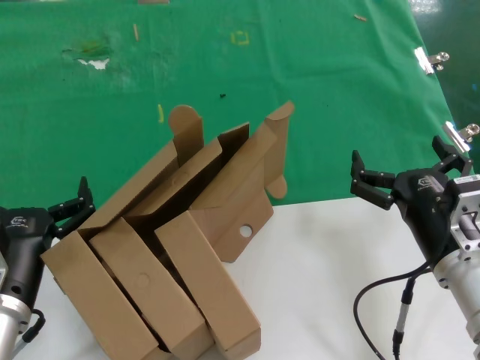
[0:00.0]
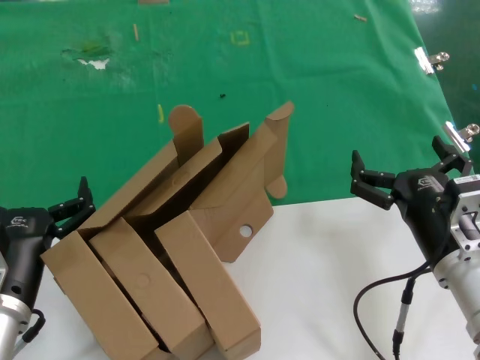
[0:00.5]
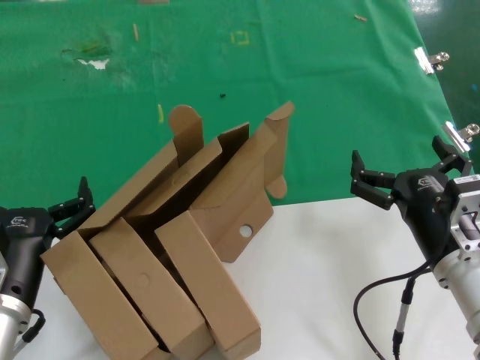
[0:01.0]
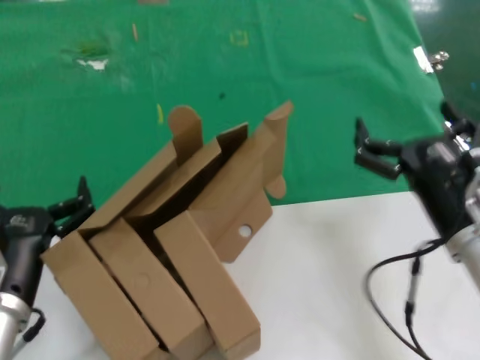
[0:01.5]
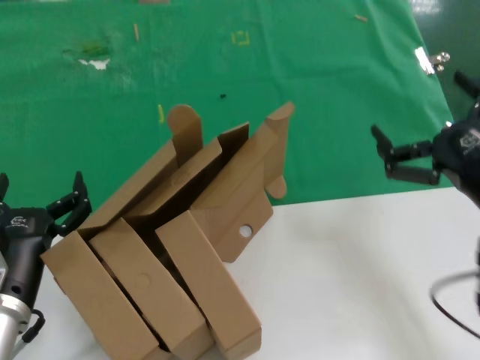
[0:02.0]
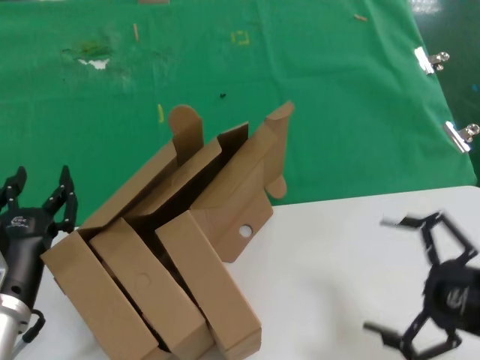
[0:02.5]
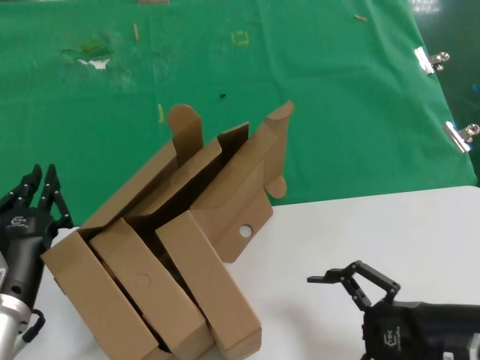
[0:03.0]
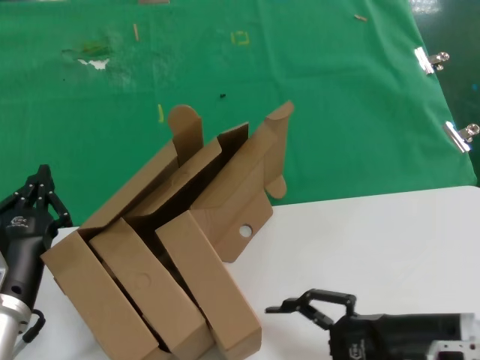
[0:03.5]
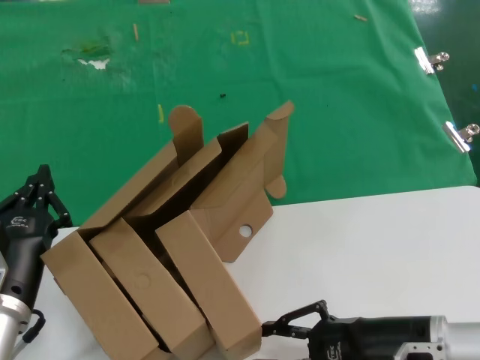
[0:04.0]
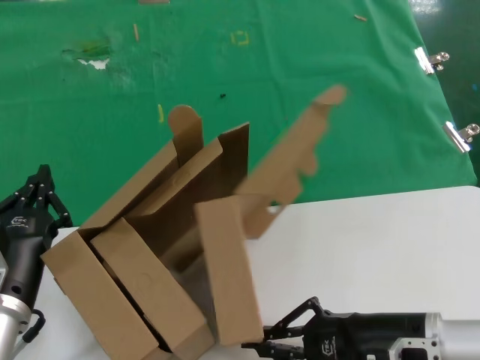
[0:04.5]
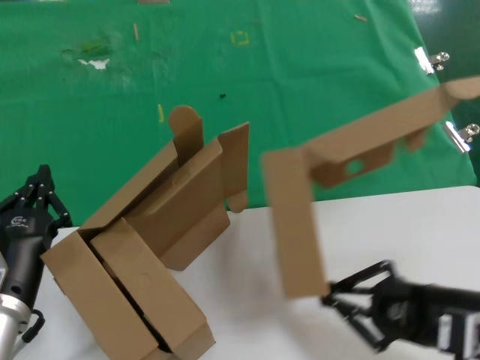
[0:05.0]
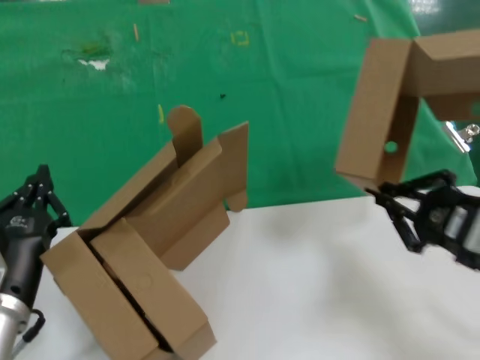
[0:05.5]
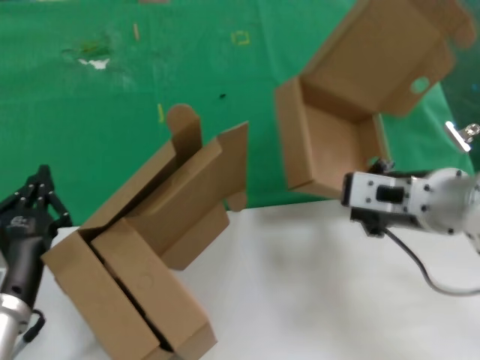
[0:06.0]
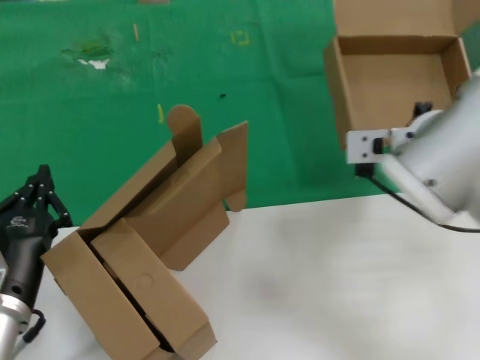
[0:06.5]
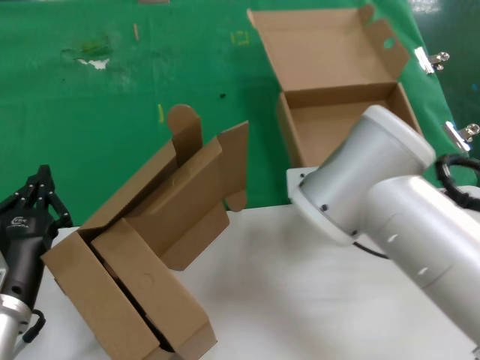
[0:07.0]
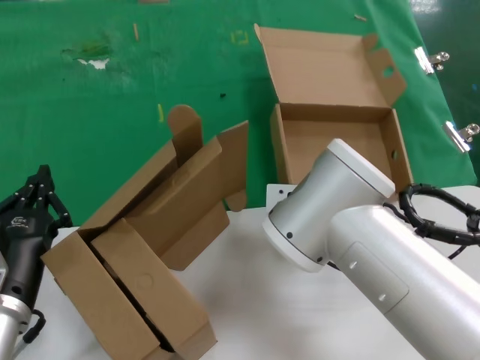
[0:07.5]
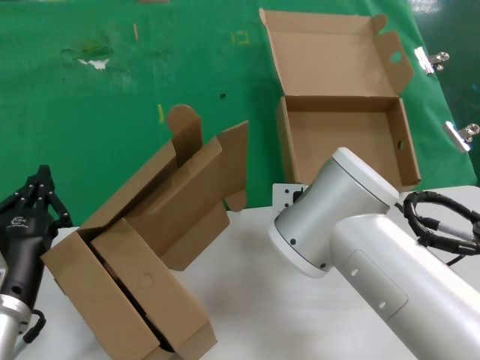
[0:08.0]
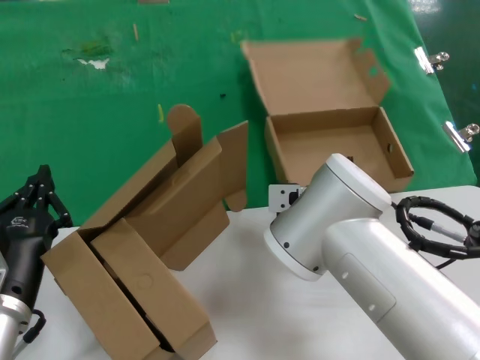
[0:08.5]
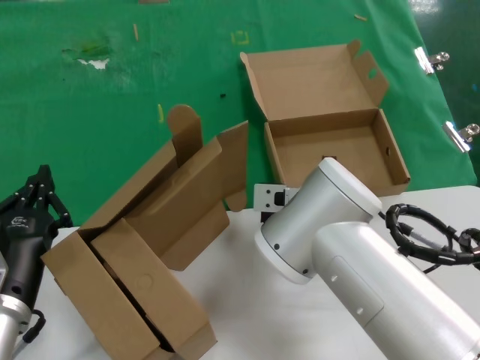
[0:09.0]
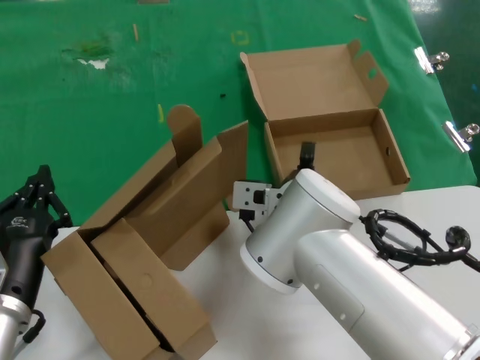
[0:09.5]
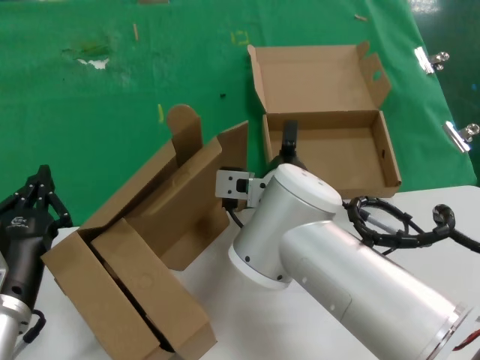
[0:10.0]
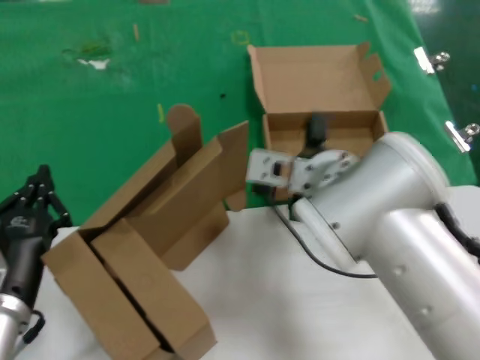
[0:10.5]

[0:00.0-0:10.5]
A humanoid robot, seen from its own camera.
Task of the whole recording: pick up the paper box and put it at the back.
Step, 0:00.0 to 0:04.0: Grasp the paper box.
Step, 0:04.5 to 0:10.0: Place the paper box on the table.
0:00.0 to 0:02.0: The right hand is displaced upward and to the right by approximately 10 cm.
0:02.0 to 0:04.0: The right hand travels downward by about 10 cm.
0:04.0 to 0:06.5: The right hand travels upward, forward and to the left by some 25 cm.
0:06.5 to 0:08.5: The right hand is displaced downward and to the left by some 15 cm.
0:08.5 to 0:10.5: The right hand moves about 5 cm.

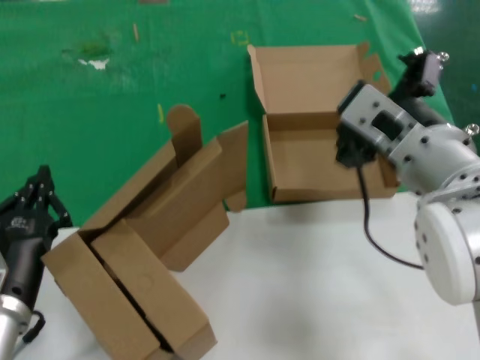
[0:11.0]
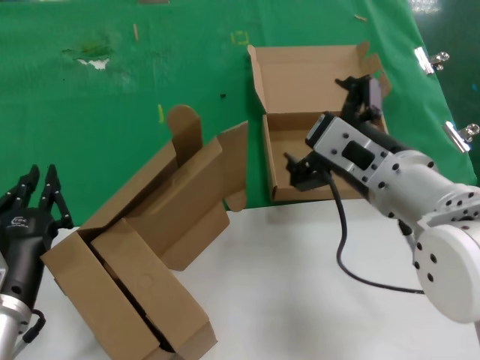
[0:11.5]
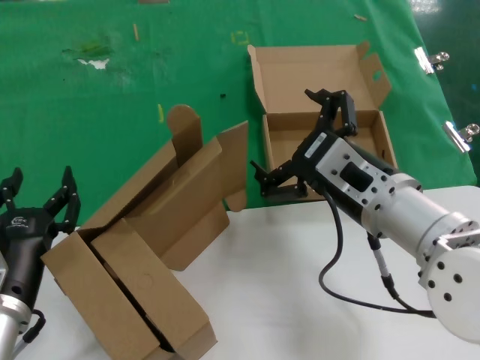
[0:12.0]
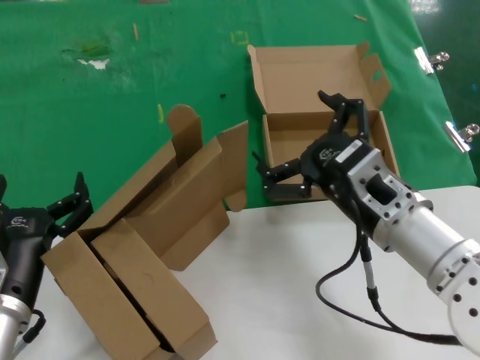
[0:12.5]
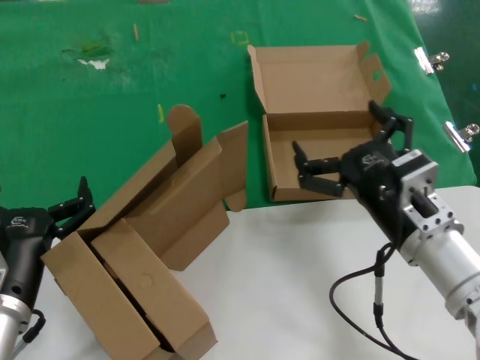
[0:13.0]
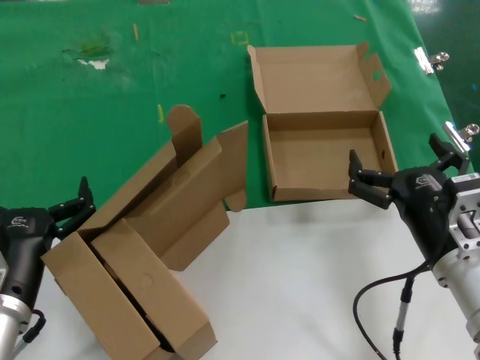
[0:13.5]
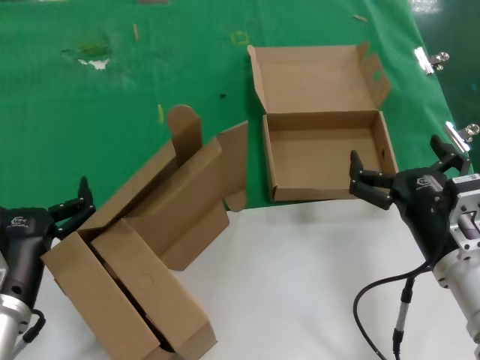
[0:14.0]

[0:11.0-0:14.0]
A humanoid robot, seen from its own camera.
Task of the whole recording: pick up the paper box and put it at the back.
0:11.0 to 0:12.5: The right hand shifts about 10 cm downward.
0:12.5 to 0:14.0: The right hand is displaced downward and to the right by approximately 10 cm.
